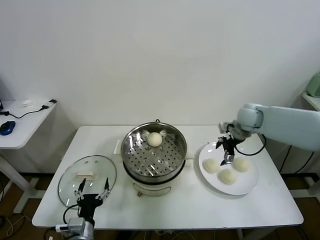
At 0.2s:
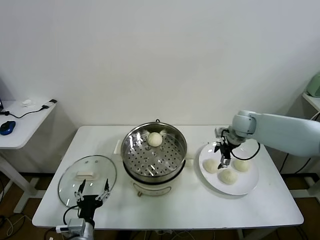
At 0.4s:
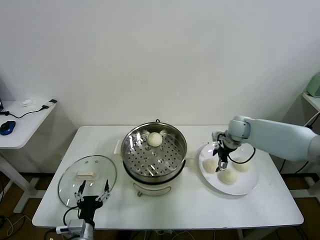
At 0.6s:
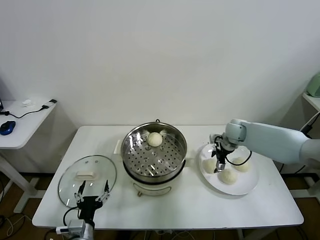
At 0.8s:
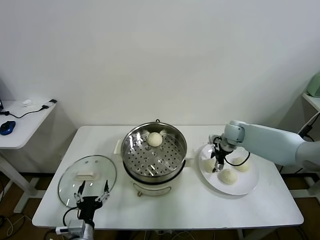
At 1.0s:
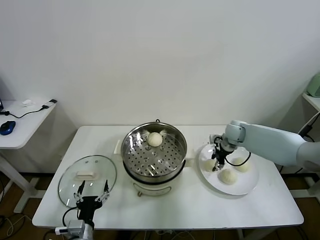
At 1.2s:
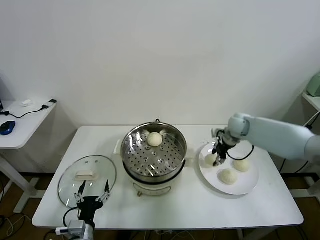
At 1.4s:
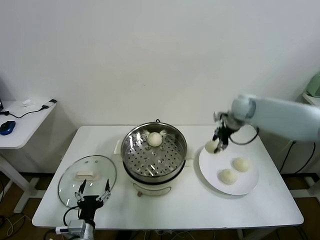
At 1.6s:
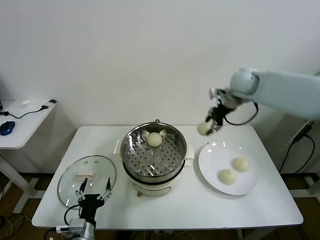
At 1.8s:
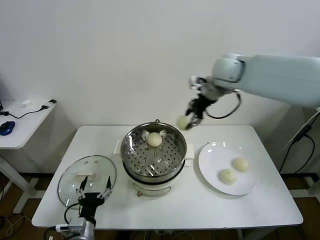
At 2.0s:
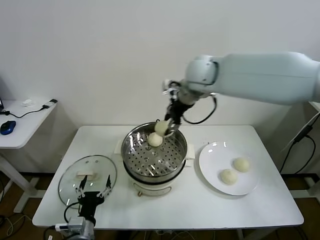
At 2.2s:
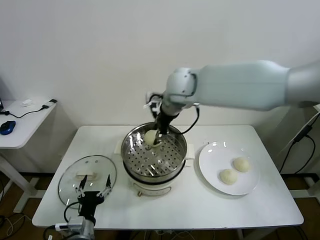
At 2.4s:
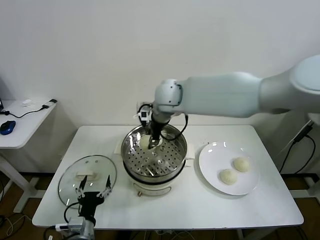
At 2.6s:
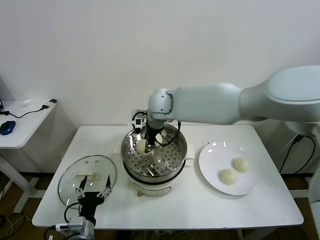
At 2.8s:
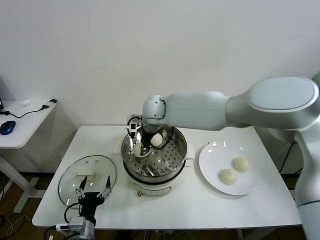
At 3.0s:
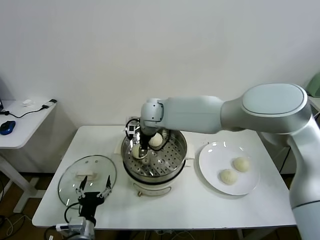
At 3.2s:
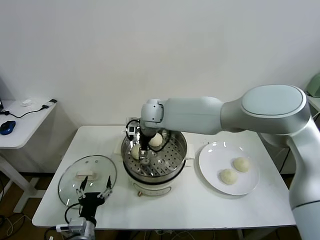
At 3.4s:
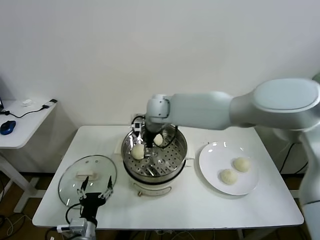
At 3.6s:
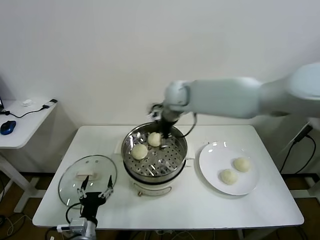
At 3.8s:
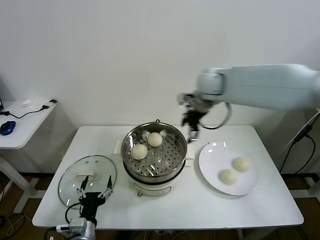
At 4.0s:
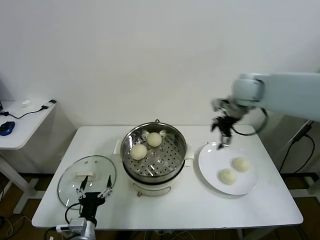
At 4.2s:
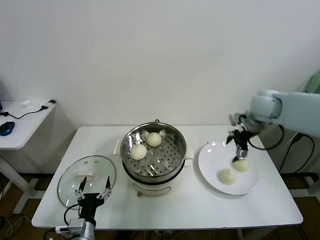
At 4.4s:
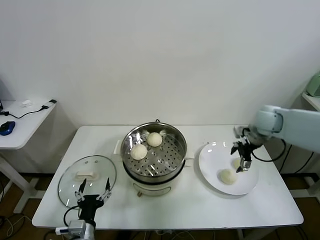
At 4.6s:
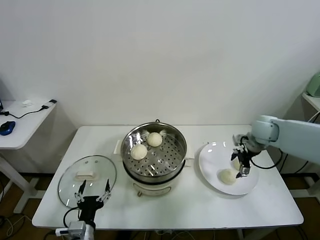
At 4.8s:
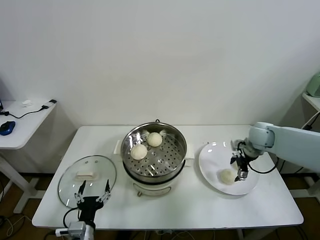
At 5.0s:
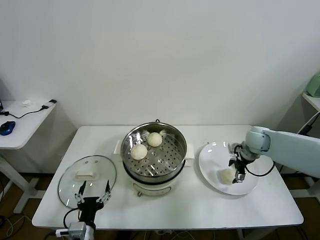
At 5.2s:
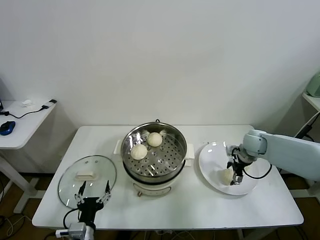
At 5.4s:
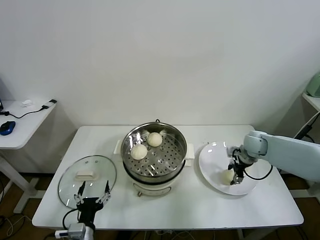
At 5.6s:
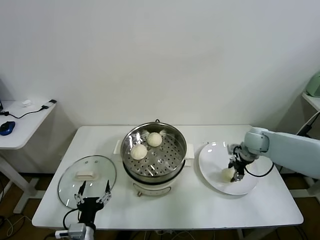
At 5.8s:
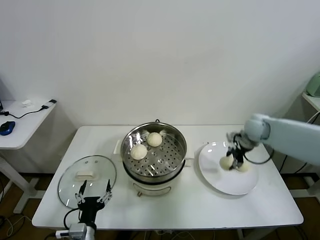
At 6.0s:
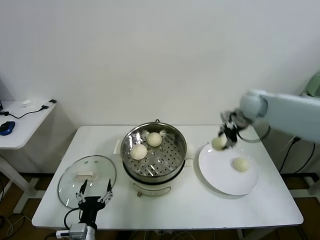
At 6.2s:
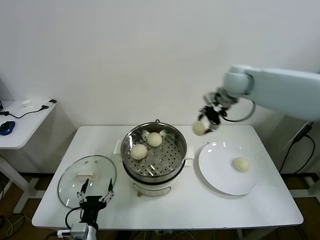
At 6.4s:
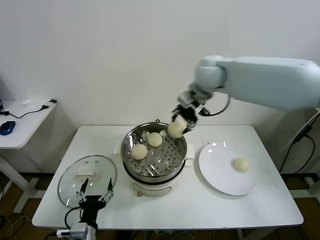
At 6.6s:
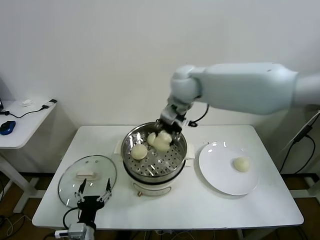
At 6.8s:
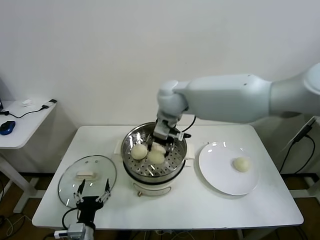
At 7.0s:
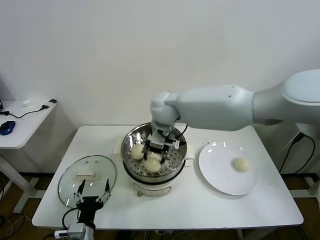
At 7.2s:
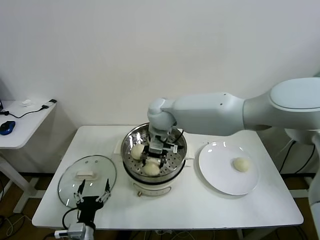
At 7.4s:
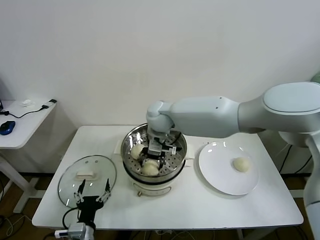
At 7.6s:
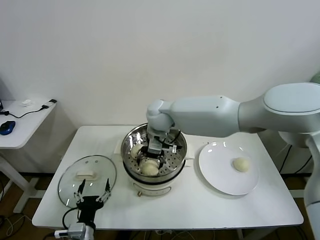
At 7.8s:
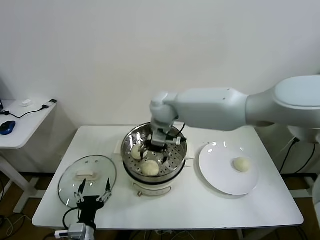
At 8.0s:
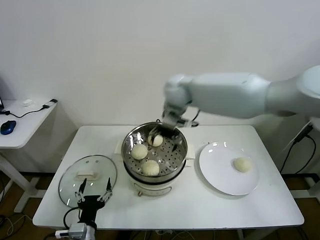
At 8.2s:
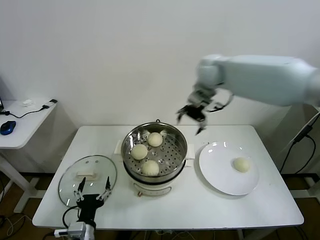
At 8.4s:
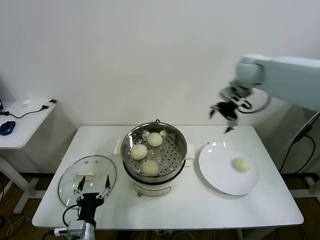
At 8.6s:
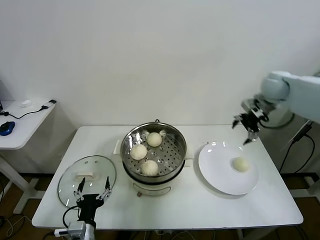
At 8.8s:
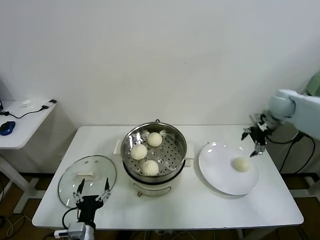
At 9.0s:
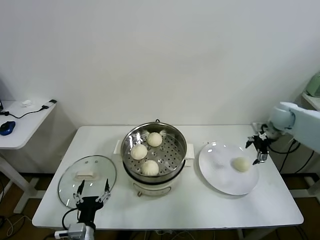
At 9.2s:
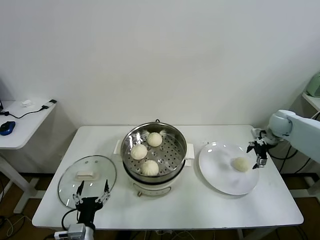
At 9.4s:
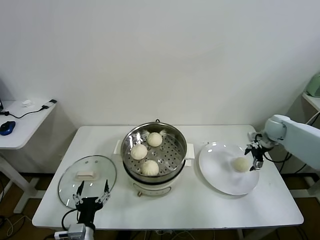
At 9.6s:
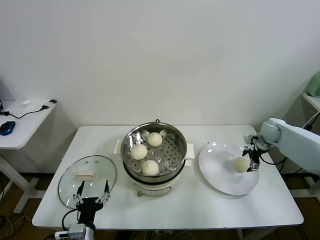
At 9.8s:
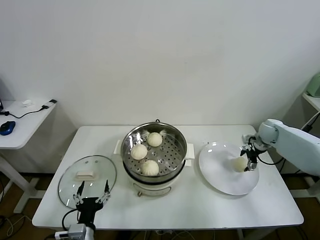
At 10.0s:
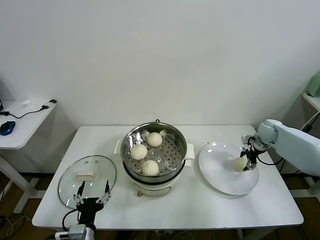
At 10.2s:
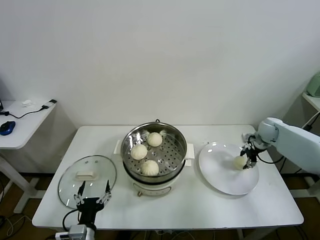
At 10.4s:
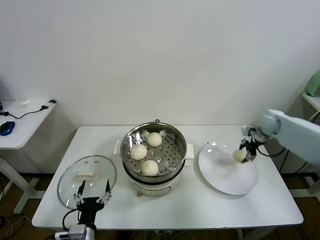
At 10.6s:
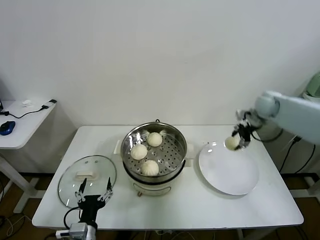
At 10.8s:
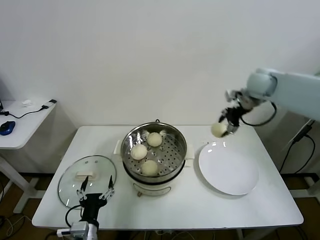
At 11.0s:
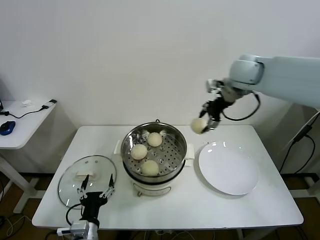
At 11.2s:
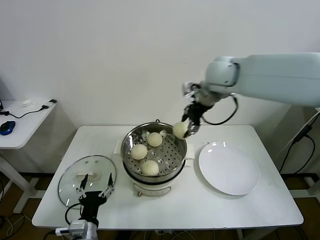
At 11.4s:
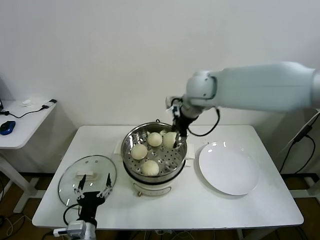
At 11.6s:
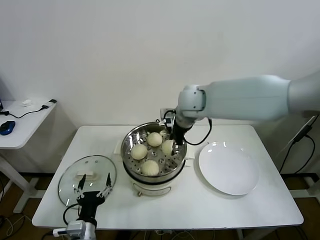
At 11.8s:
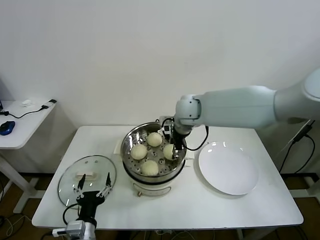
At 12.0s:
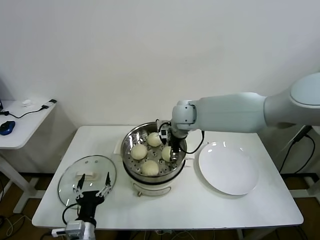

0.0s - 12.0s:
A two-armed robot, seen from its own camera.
Task of the whole recording: take steamed baozi put them in steamer.
Step, 1.2s - 3.2s: Place the baozi on the steamer with right gripper.
Step, 3.4s - 5.4s: Grasp the baozi in the plate with right gripper.
Step, 5.6s - 7.6s: Place the baozi on the steamer with right gripper.
Step, 7.8s - 10.0s: Grasp the baozi in the plate with right gripper.
0.0s - 1.6s: The right gripper heads upward and to the left, covering roughly 20 cm, and closes up.
1.6s - 3.0s: The right gripper shifts approximately 30 cm to the left and downward, and opens.
3.0s - 4.4s: The right gripper moves to the right, about 40 cm, and opens.
4.4s - 6.0s: The right gripper shifts approximately 10 cm upward, to the left and forward, and closes.
6.0s - 7.6s: The right gripper travels to the left by roughly 30 cm, and opens its fingers.
7.6s - 9.0s: The right gripper travels to the right by roughly 50 cm.
9.0s - 10.4s: The right gripper reaches about 10 cm downward, then returns, and closes its fingers.
10.4s - 12.0s: The right gripper goes some 35 cm to the left.

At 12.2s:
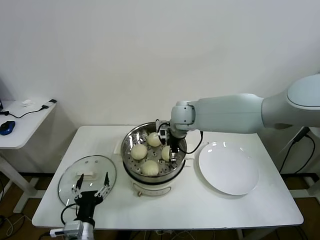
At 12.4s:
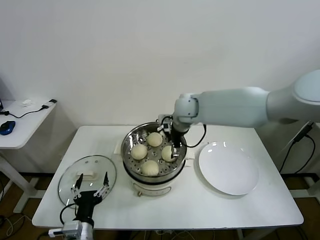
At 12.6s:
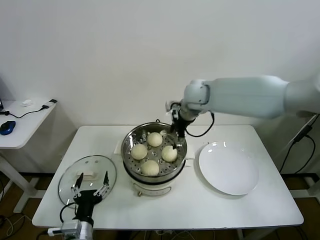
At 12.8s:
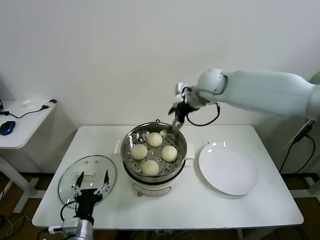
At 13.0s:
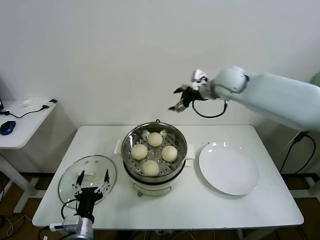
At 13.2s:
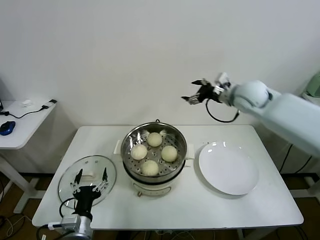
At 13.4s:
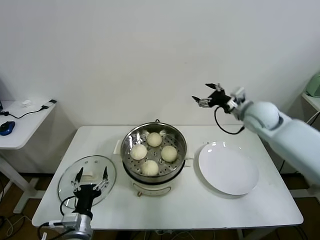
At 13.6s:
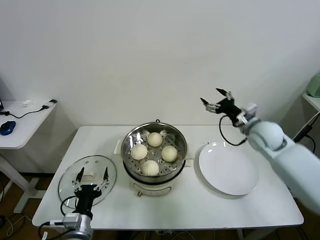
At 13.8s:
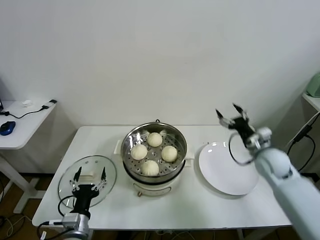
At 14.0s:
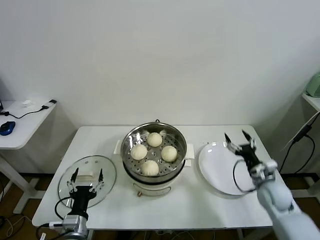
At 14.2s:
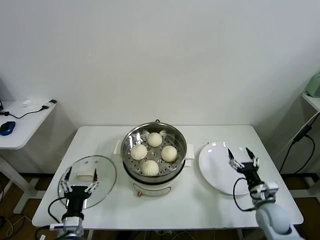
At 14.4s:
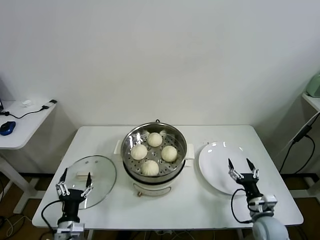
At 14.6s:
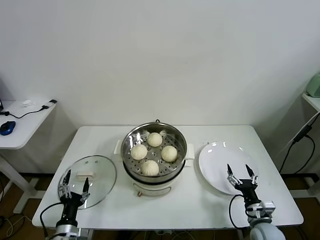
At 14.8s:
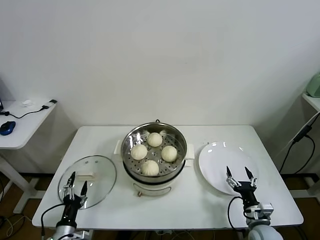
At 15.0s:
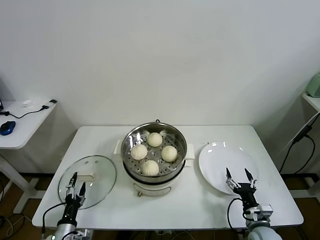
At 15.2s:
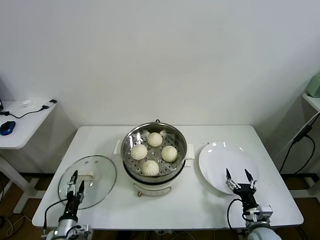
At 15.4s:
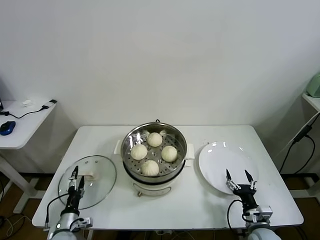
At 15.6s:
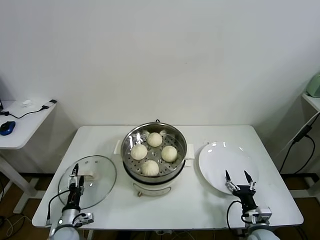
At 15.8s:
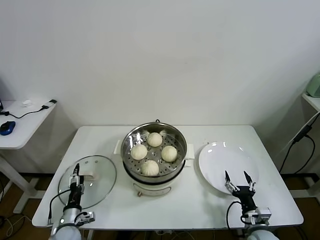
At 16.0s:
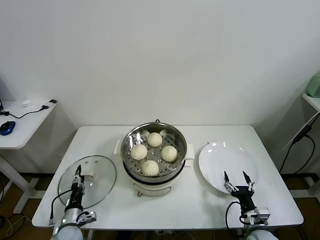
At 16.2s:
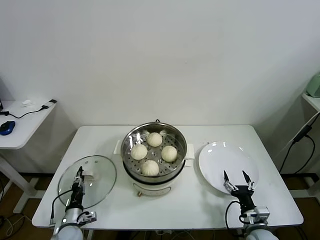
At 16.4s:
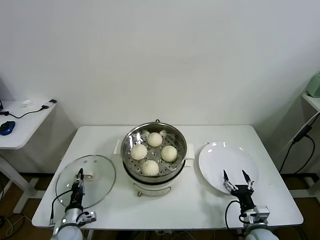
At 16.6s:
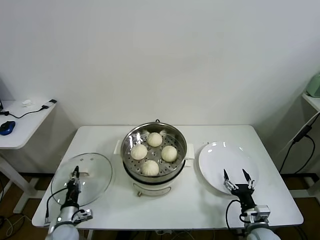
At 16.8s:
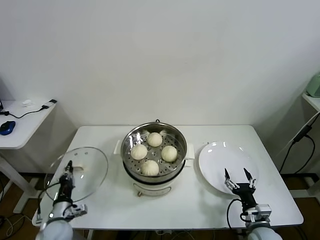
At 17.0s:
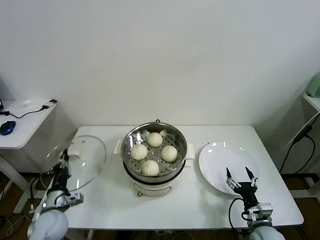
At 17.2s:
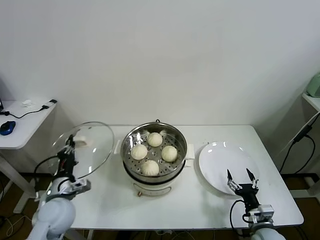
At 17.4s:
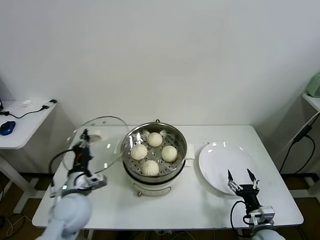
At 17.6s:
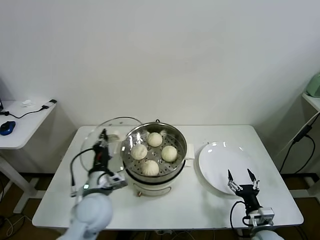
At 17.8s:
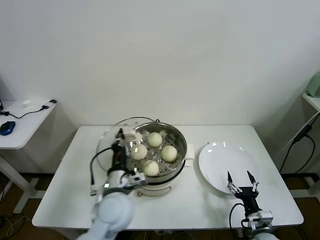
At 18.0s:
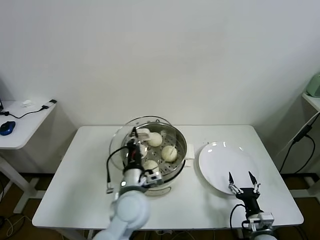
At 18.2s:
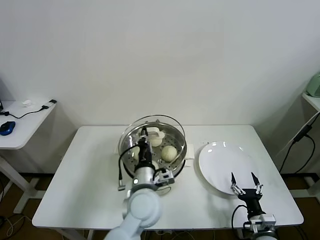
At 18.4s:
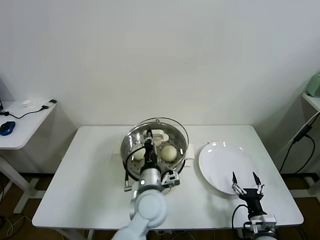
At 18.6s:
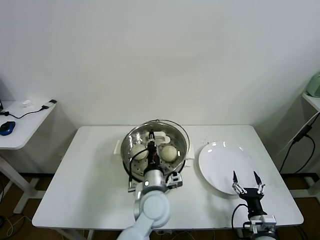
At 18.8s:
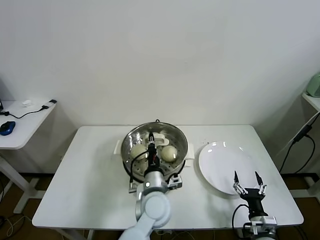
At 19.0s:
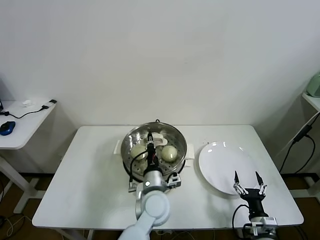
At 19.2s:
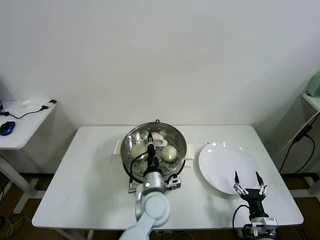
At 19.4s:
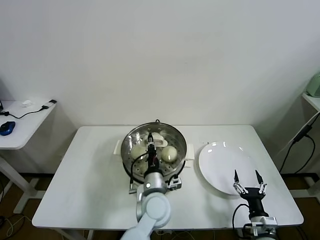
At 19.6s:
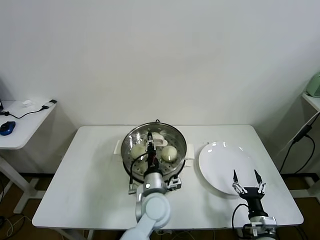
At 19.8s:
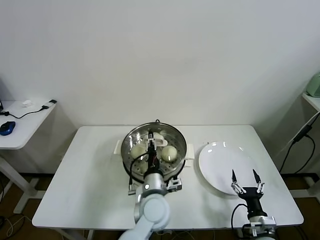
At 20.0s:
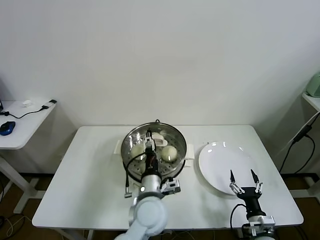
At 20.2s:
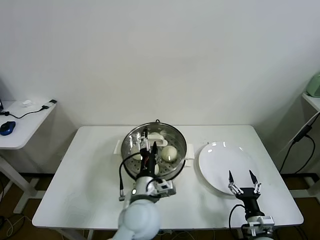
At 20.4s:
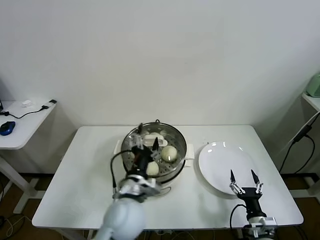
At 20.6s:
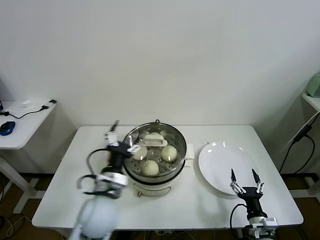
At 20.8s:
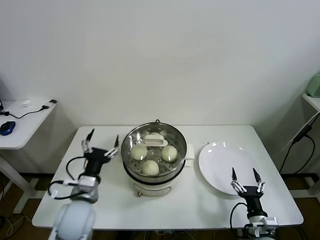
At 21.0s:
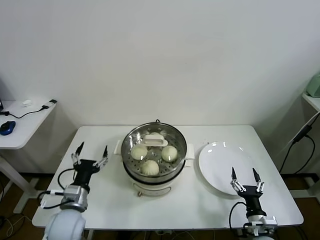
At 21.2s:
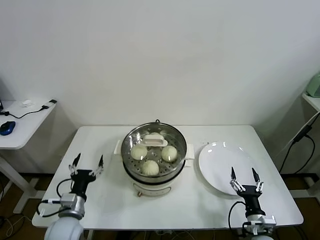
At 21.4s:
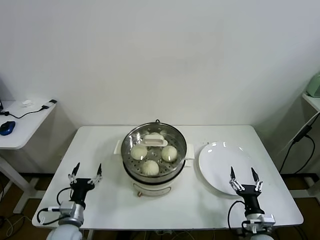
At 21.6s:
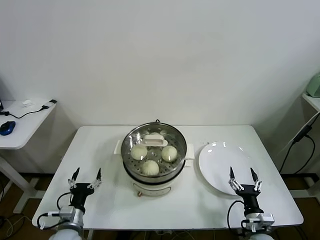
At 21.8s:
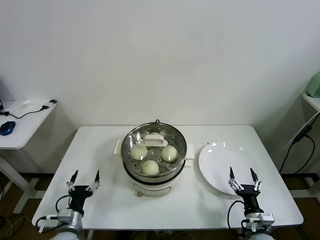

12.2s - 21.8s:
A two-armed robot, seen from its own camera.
Task of the whole recording: take steamed baozi put them in steamer.
Step, 12.4s - 16.4s: Grasp the pot lid with left gripper.
Step, 16.6s - 19.6s: Place the pot lid on the steamer with left gripper.
12.2s - 13.8s: The right gripper travels to the right, downward and backward by about 35 cm.
13.8s - 15.4s: The left gripper shifts some 15 cm downward and to the left, while the right gripper is displaced backward and downward by approximately 25 cm.
15.4s - 17.0s: The left gripper is displaced upward by some 10 cm, and closes up.
17.0s - 18.6s: The left gripper is displaced to the right by some 35 cm.
18.6s - 20.2s: The left gripper opens.
20.2s - 21.8s: The left gripper travels to the left and downward by about 30 cm.
